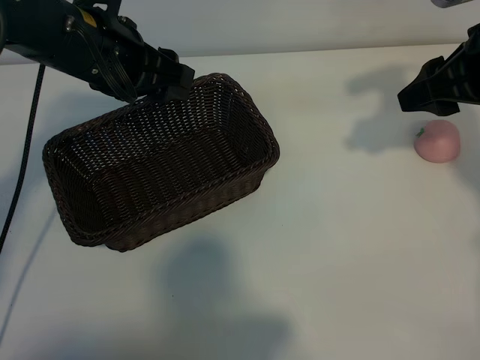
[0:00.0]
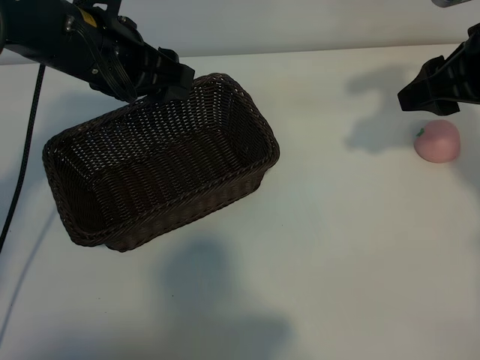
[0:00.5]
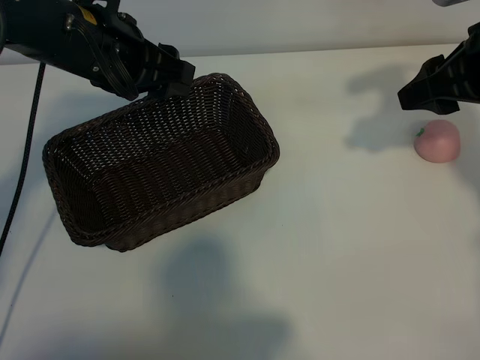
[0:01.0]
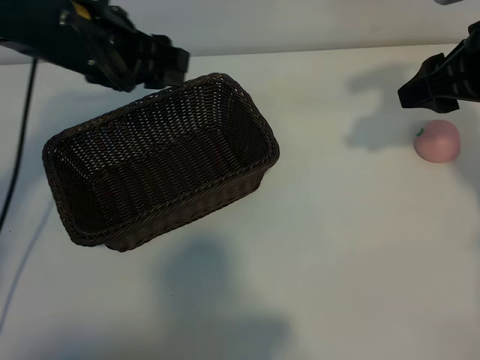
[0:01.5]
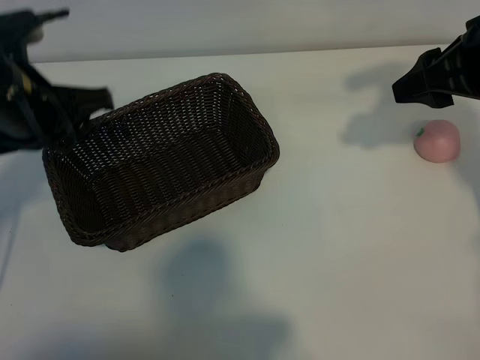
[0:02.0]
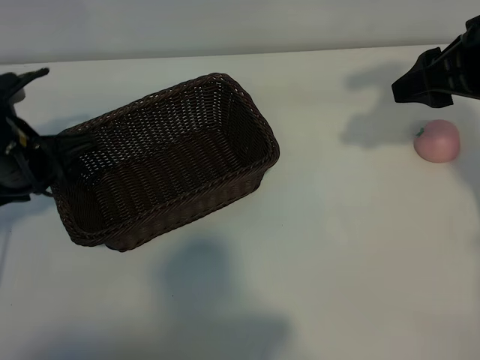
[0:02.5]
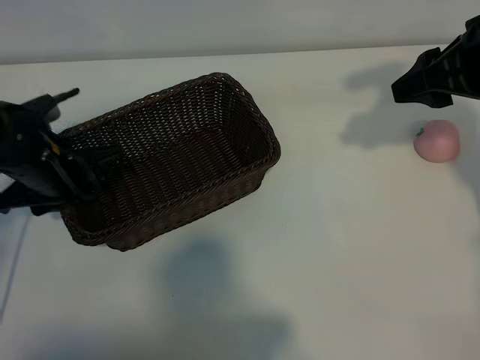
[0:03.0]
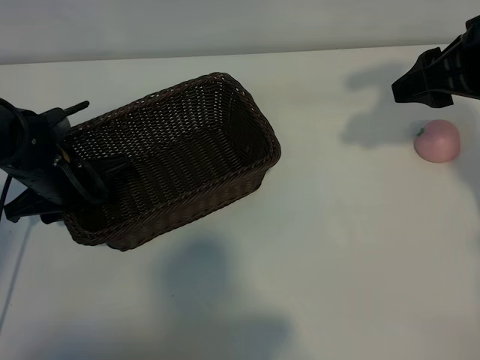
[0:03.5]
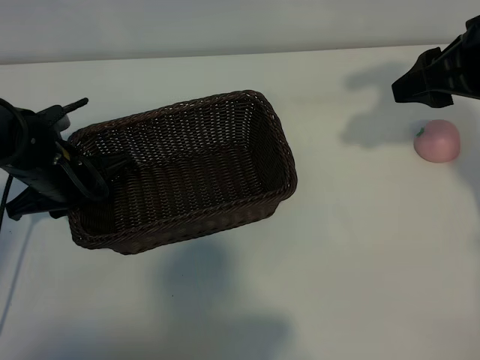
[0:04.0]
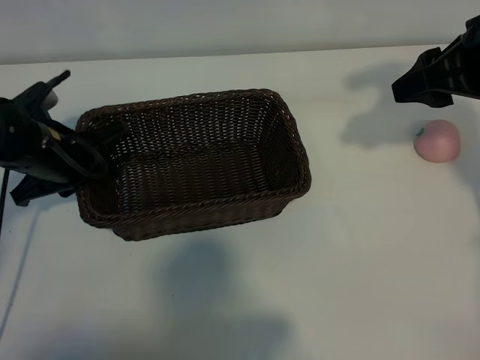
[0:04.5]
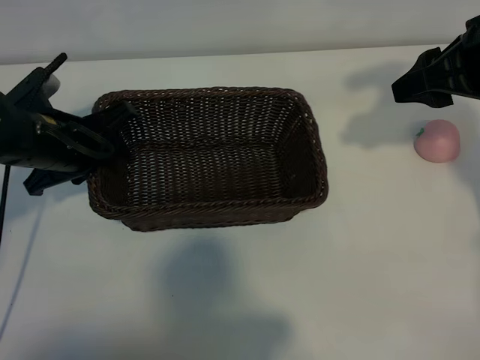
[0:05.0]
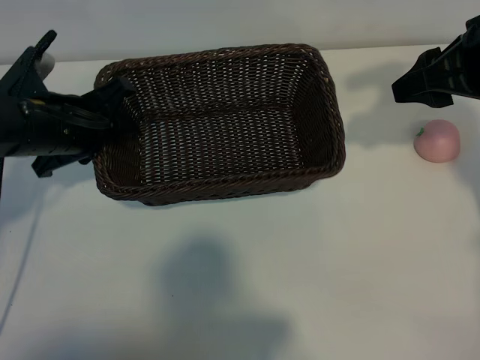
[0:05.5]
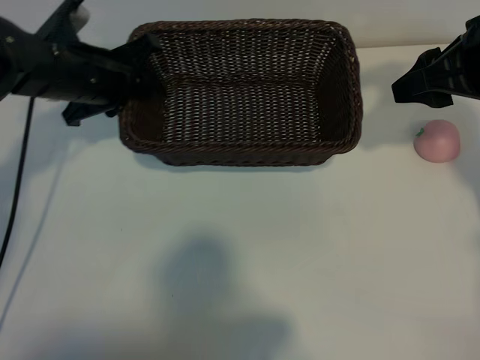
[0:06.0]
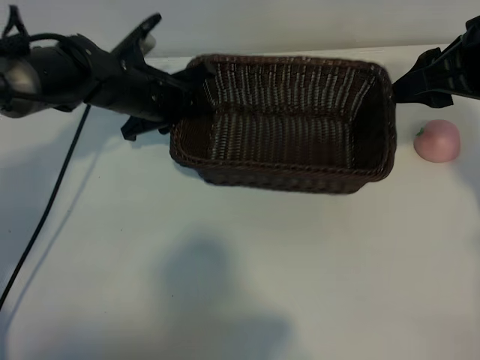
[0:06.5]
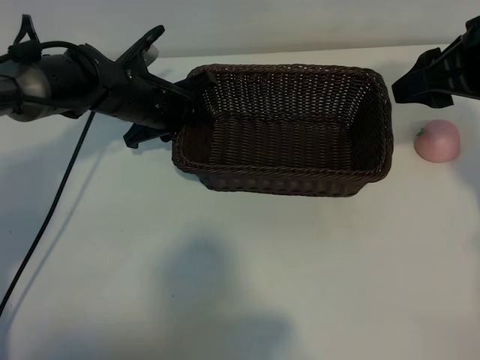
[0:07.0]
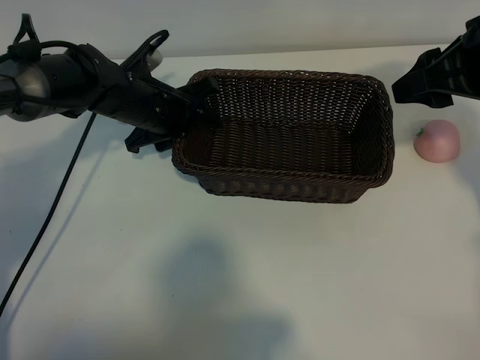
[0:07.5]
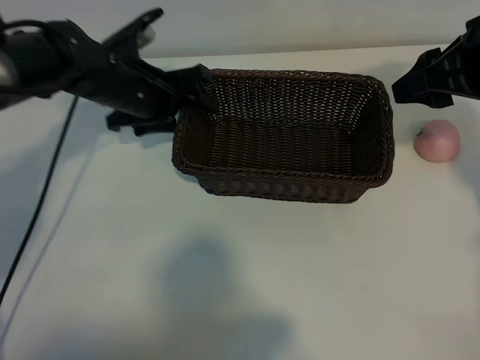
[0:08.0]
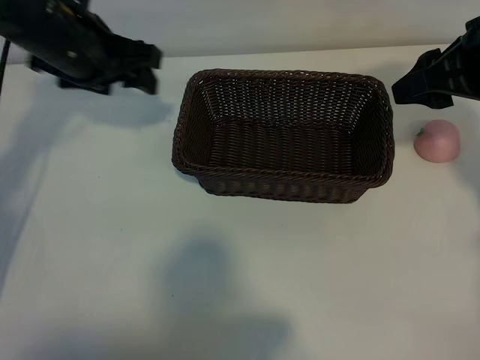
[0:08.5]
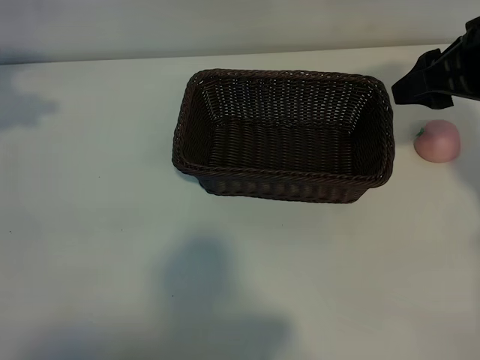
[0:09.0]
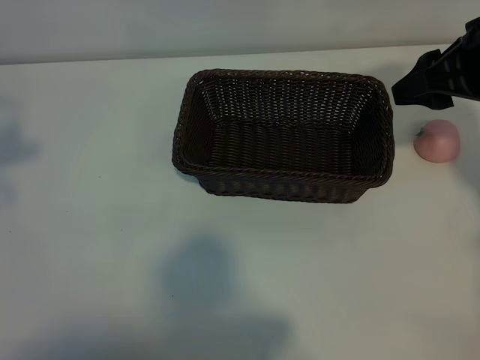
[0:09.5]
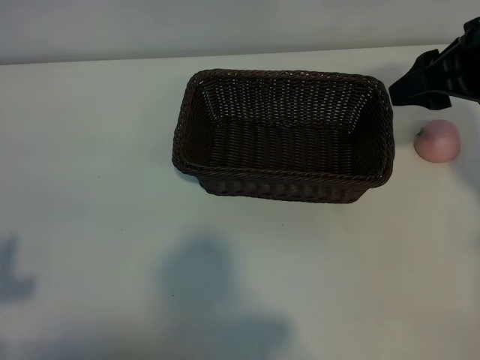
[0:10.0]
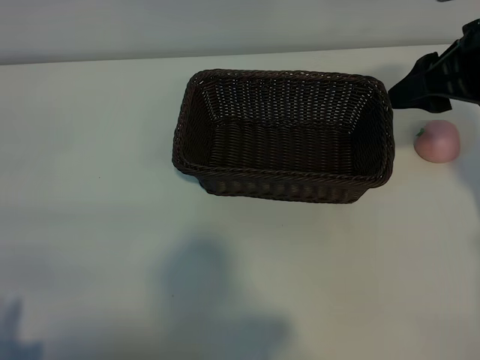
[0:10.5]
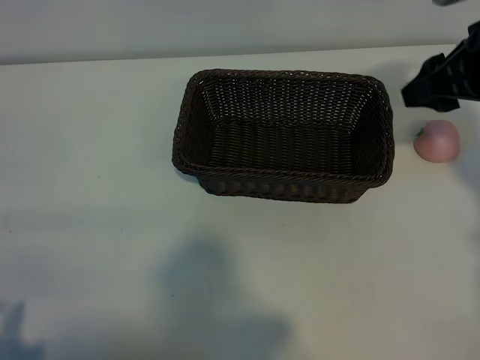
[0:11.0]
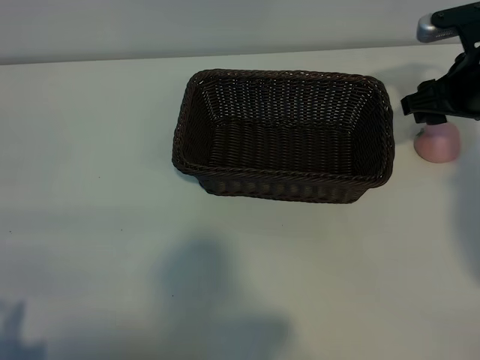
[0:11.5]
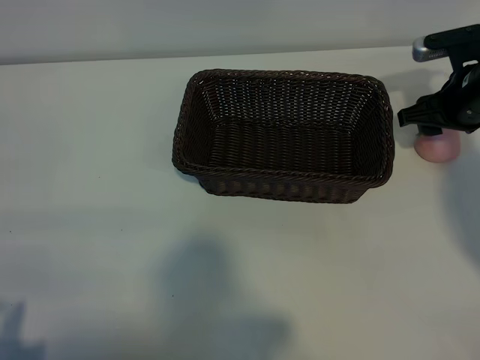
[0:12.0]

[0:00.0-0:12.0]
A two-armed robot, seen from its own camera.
Task of the whole recording: pick up the peach and put it into the basket.
Step, 0:01.0 to 0:03.5: Grasp the basket with left gripper.
Step, 0:04.0 to 0:08.0: Place the basket in the center of view with left gripper.

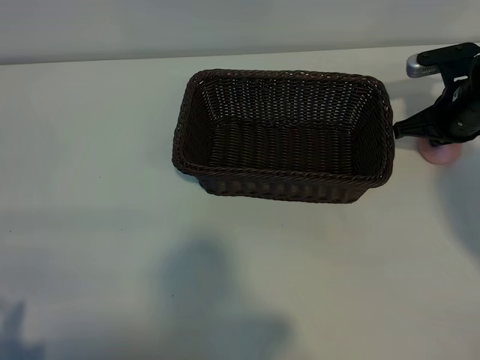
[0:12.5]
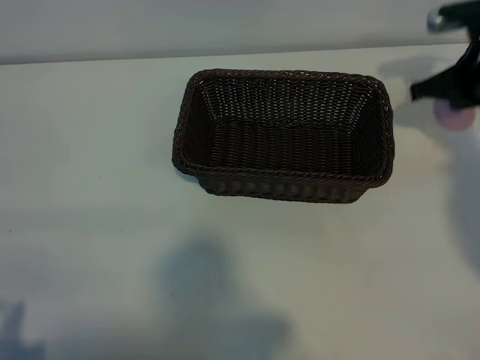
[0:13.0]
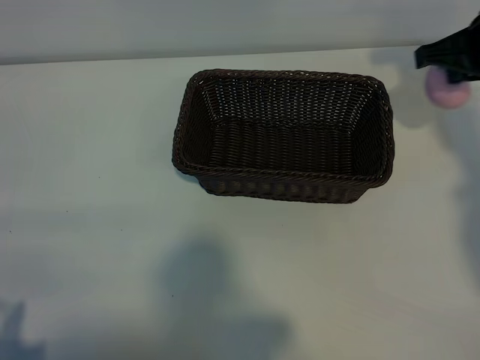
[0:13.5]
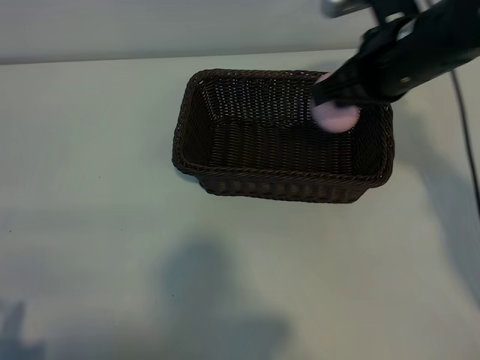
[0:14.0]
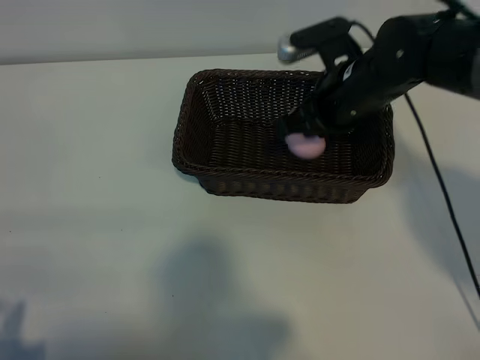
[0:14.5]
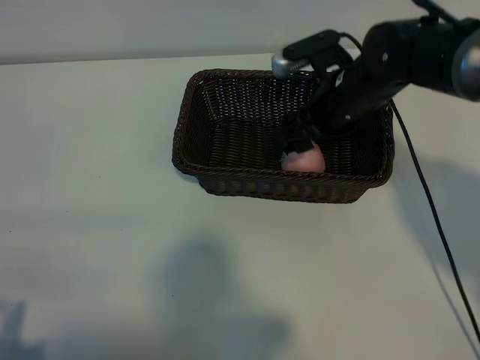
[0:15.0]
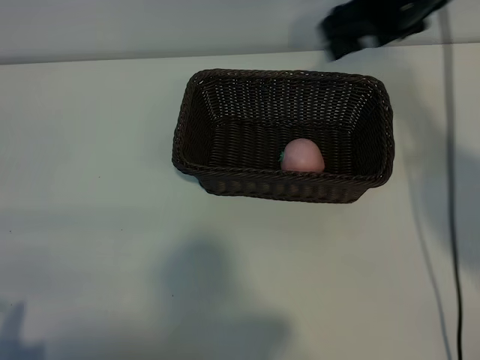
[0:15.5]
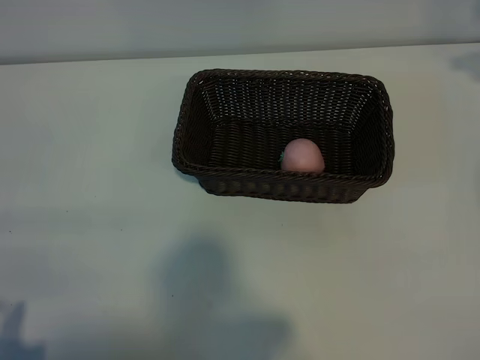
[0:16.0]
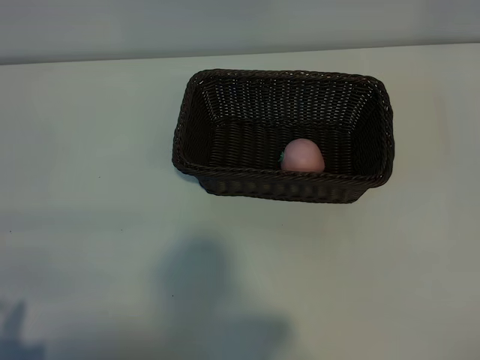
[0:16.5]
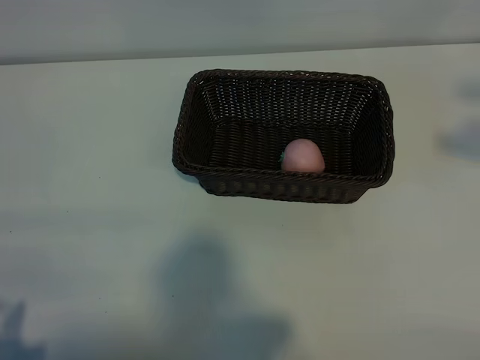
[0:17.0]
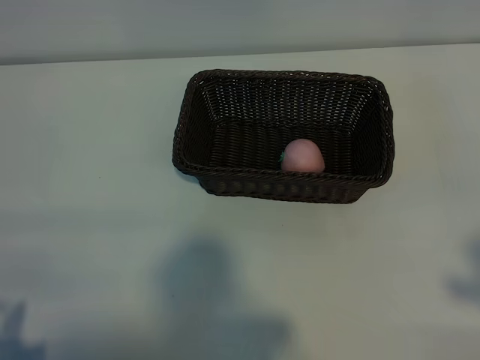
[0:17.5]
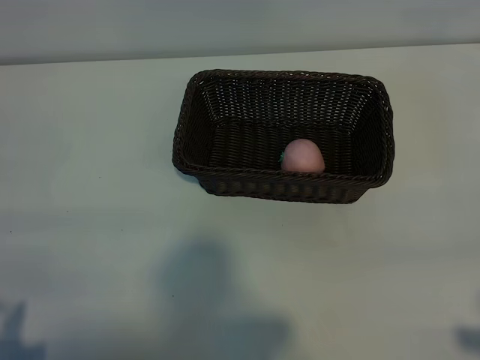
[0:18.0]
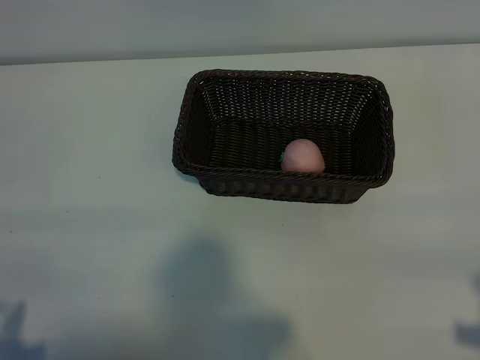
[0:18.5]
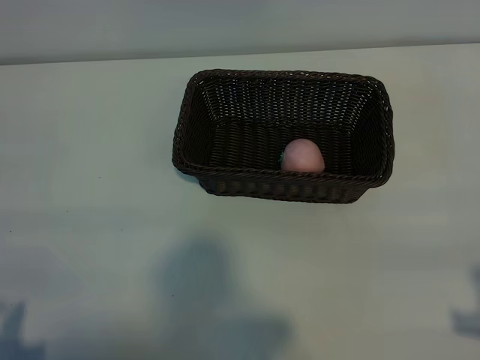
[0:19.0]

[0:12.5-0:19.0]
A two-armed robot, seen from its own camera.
Task of the whole recording: pick up the peach and put it into the basket.
Step, 0:13.0 to 0:15.0: Place the peach in the basket with right gripper.
